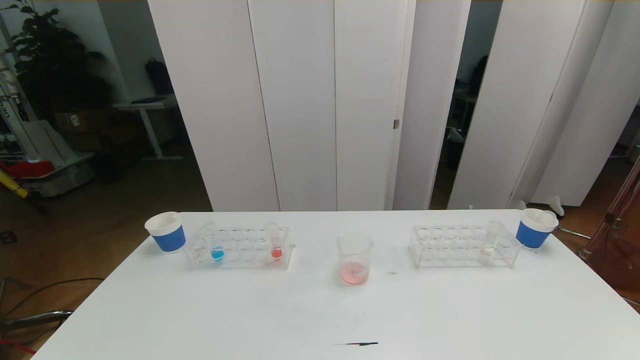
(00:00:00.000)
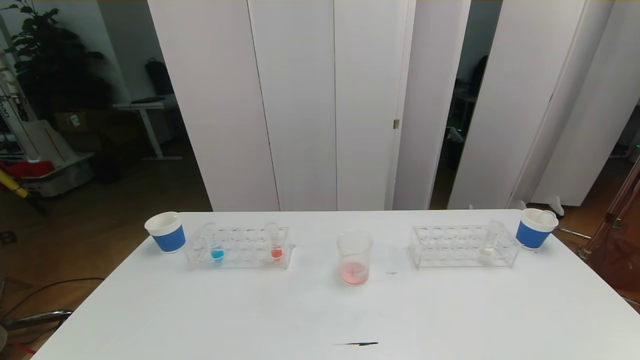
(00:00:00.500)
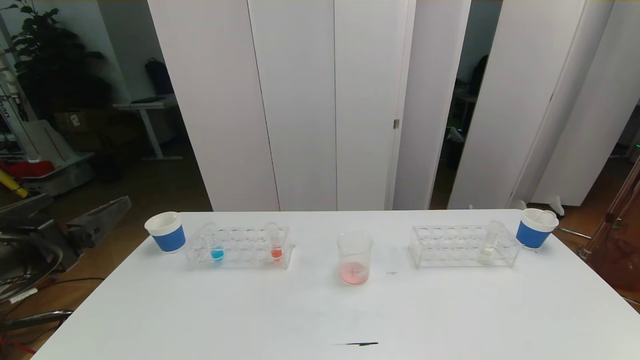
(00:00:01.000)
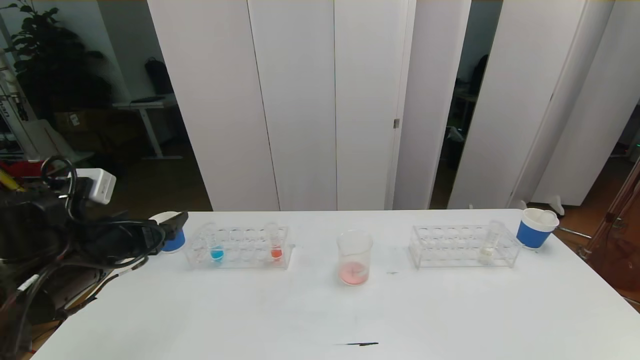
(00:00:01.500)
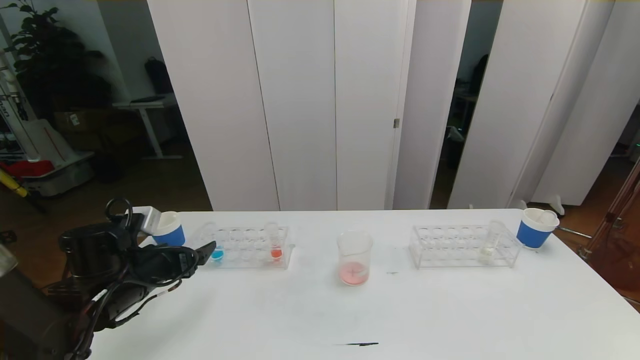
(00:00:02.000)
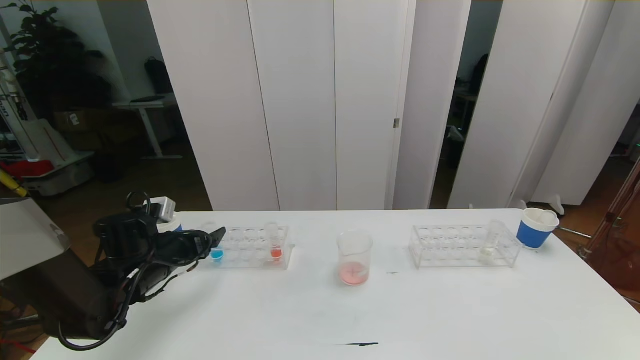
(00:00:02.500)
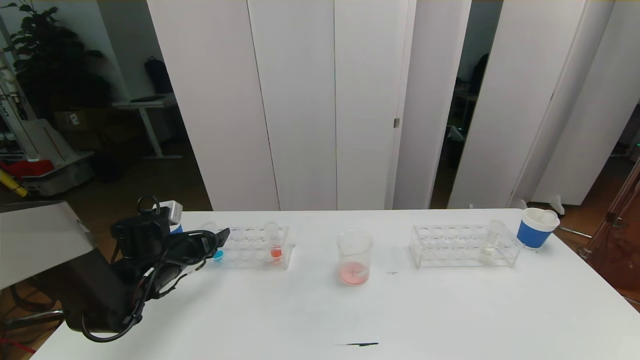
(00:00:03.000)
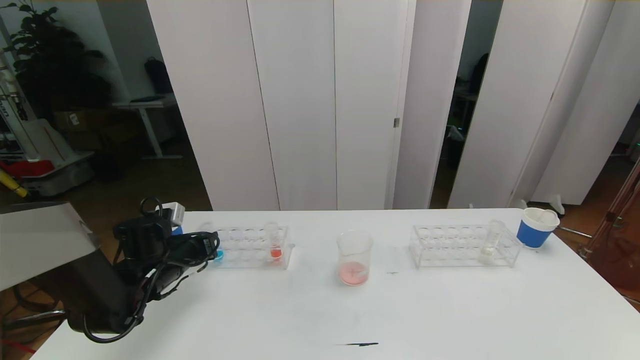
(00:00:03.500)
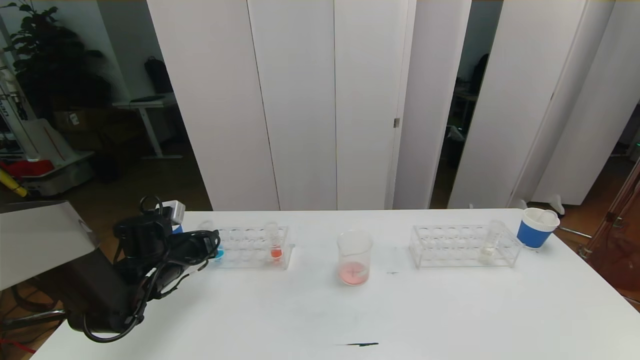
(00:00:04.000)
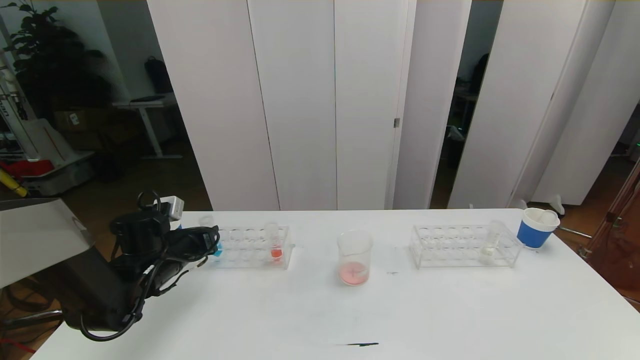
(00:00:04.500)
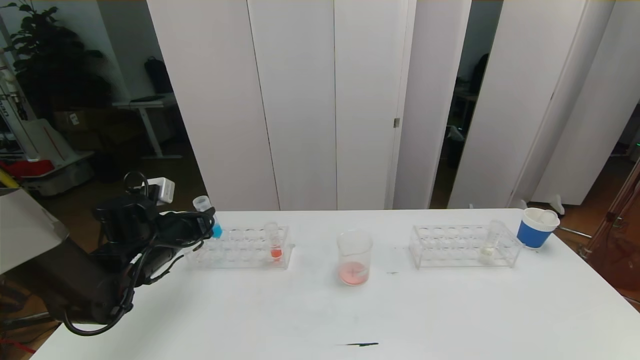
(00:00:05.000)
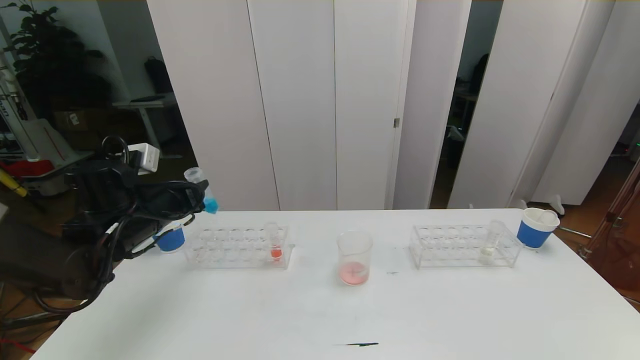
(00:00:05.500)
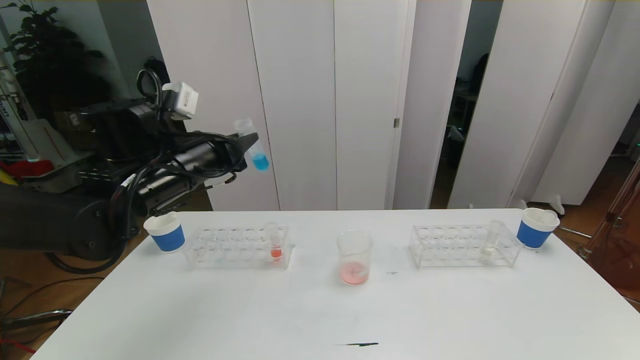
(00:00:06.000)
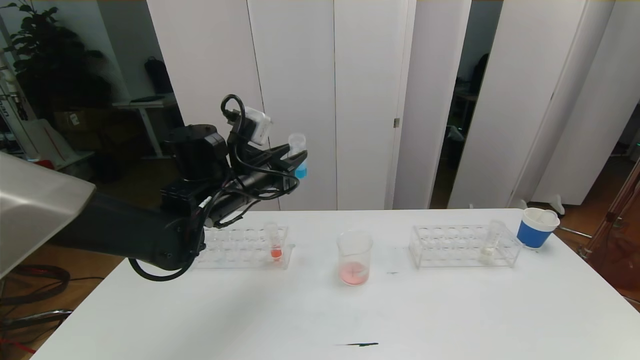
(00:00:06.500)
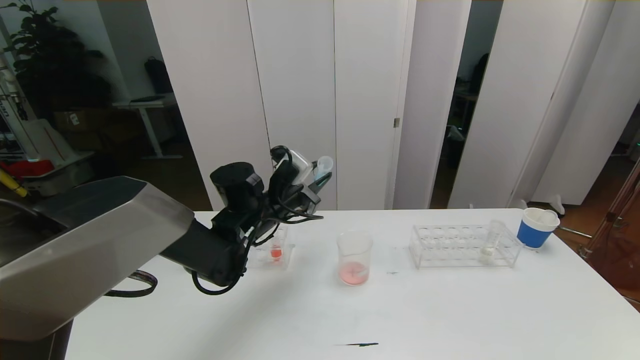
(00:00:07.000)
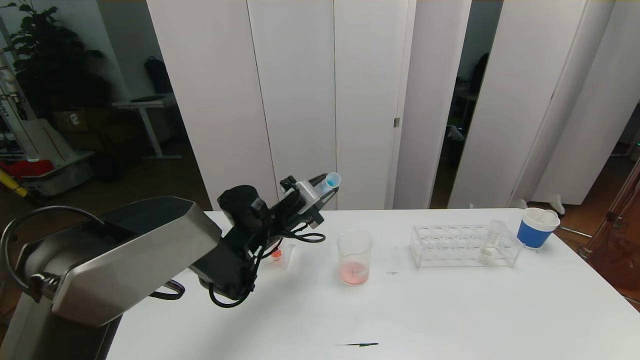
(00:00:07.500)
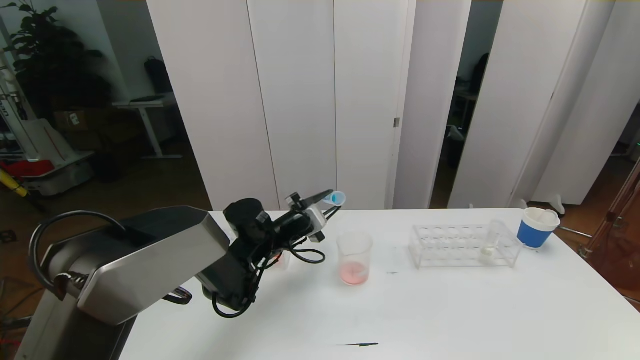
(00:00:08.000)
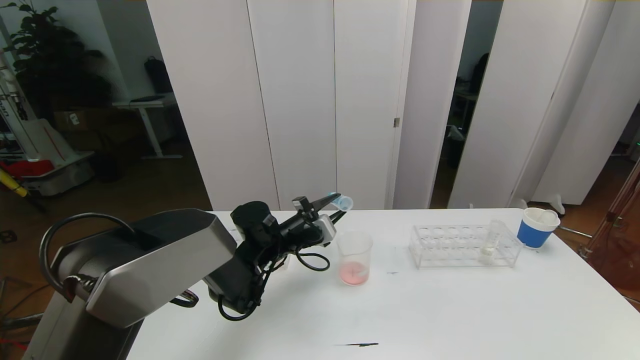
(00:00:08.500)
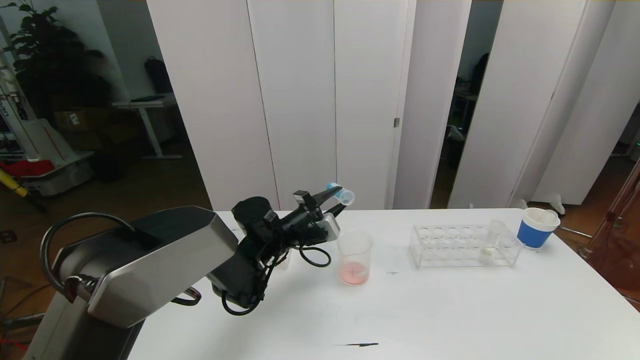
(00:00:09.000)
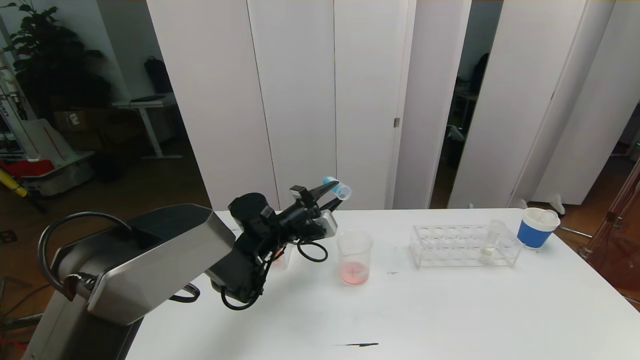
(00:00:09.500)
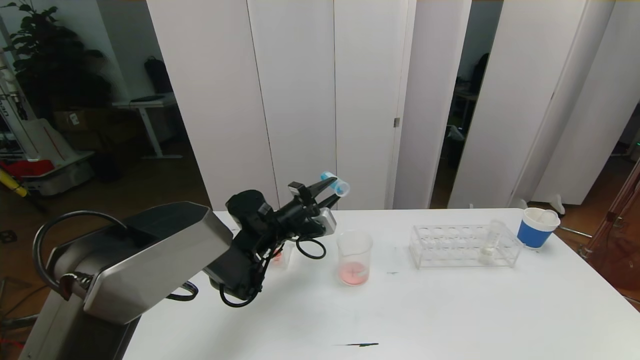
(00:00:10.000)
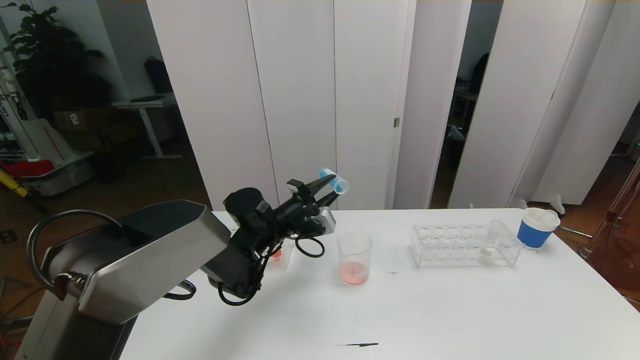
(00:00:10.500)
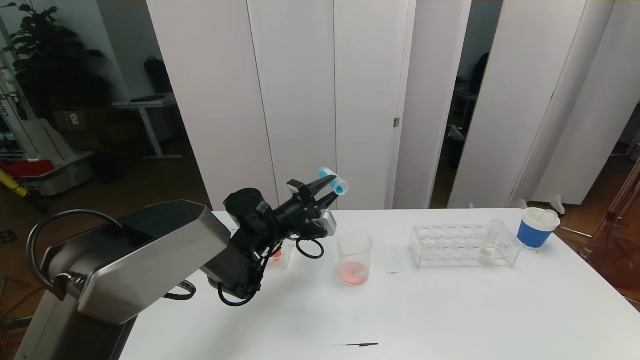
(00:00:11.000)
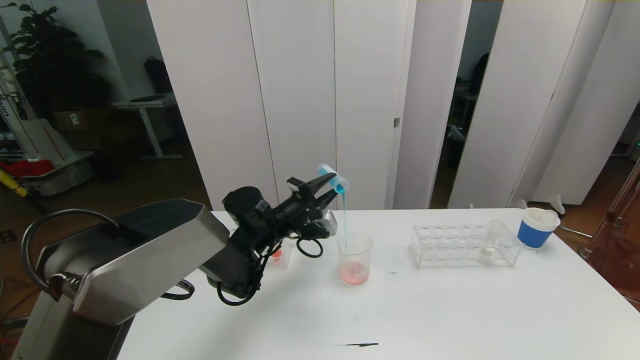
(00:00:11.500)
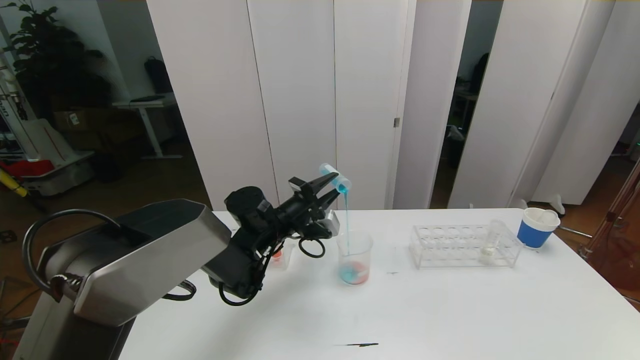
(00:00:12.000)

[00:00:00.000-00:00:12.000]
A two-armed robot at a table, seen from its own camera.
Task of the whole recording: pick up the test tube with red pigment the test tube with blue pigment and the test tube with white pigment by grippers and pour them into the beaker.
00:00:00.000 to 00:00:02.000: The left gripper moves forward, roughly 30 cm.
00:00:02.000 to 00:00:04.000: The left gripper moves forward, some 5 cm, and closes.
00:00:04.000 to 00:00:06.000: The left gripper travels upward and to the right by some 20 cm.
00:00:06.000 to 00:00:08.000: The left gripper is displaced downward and to the right by some 20 cm.
00:00:10.000 to 00:00:12.000: The grippers make only small movements.

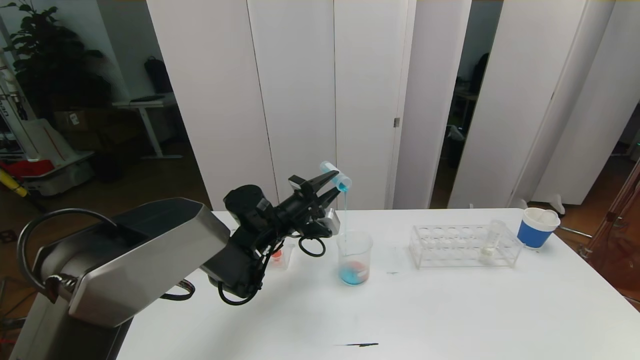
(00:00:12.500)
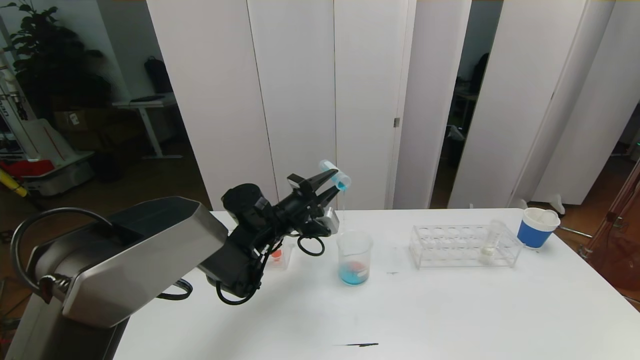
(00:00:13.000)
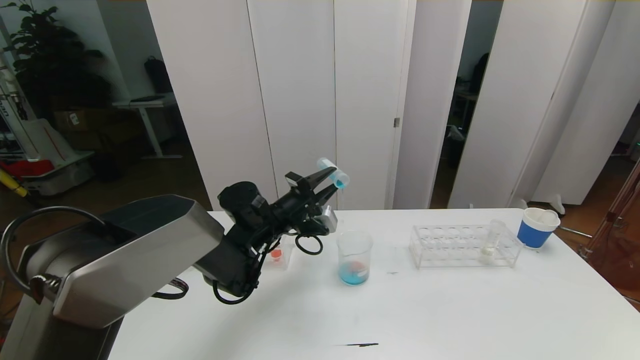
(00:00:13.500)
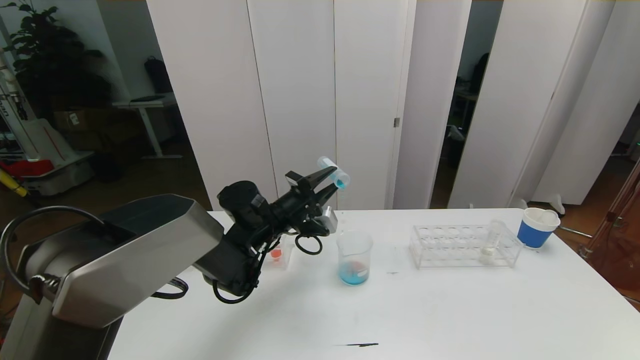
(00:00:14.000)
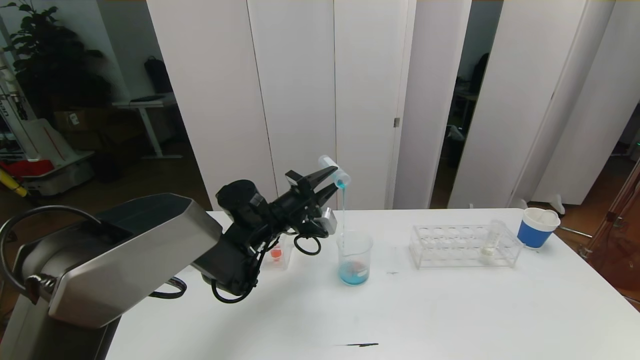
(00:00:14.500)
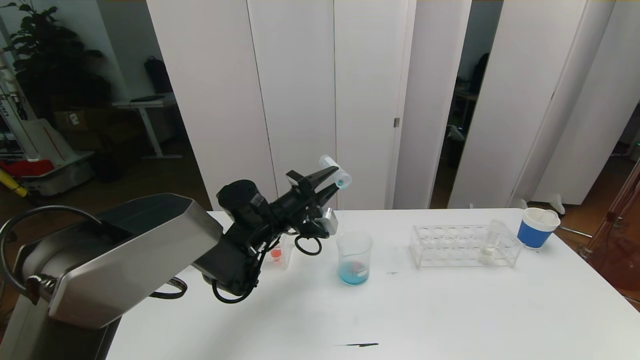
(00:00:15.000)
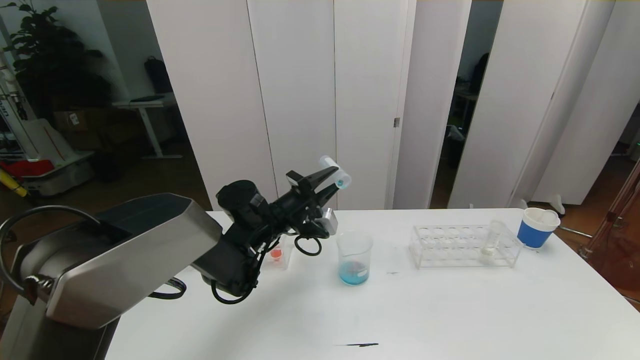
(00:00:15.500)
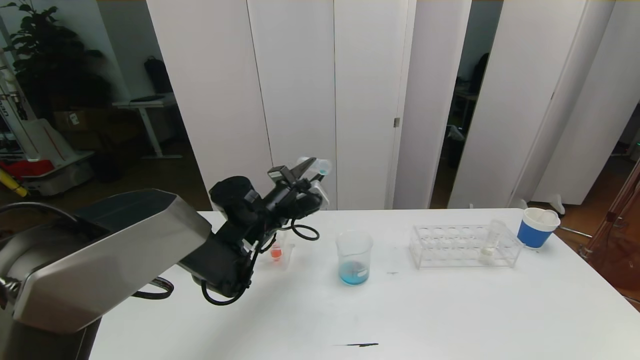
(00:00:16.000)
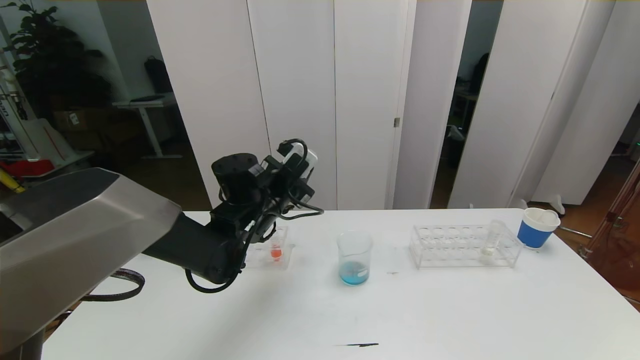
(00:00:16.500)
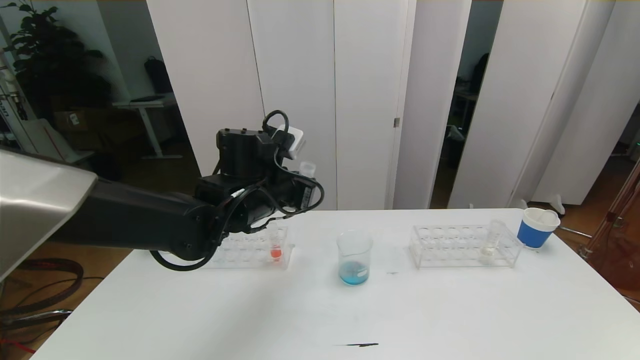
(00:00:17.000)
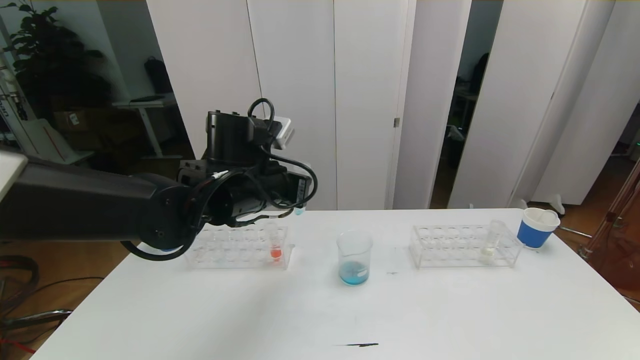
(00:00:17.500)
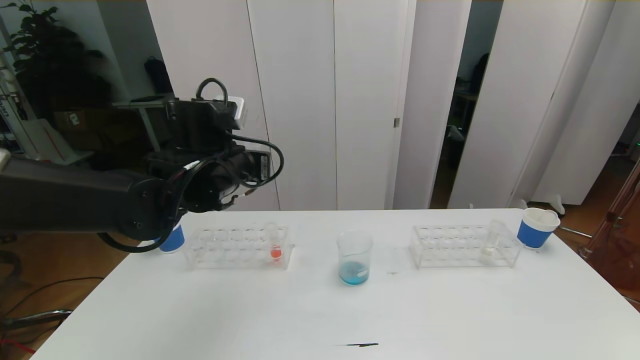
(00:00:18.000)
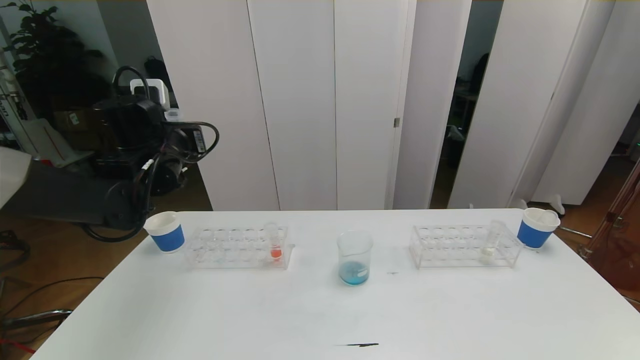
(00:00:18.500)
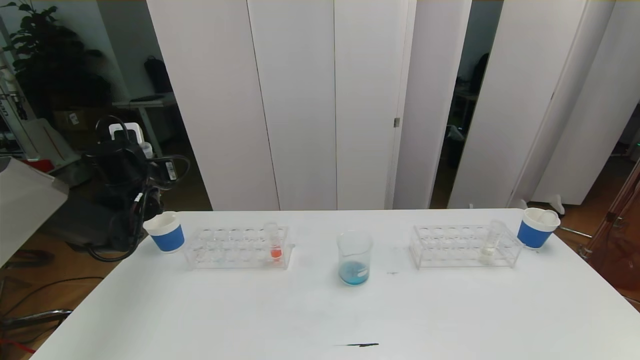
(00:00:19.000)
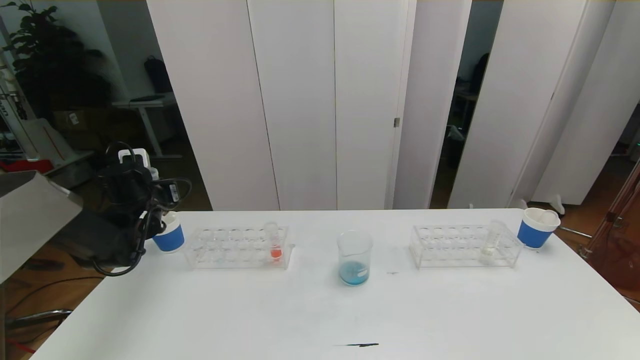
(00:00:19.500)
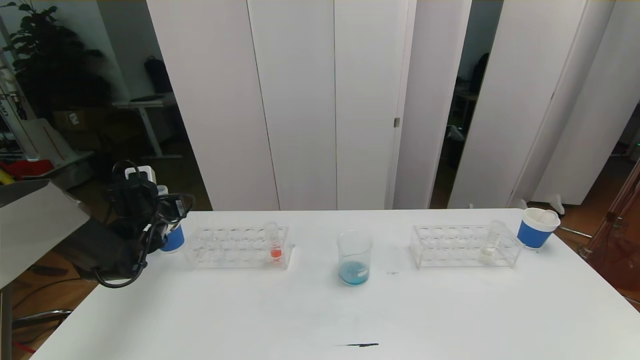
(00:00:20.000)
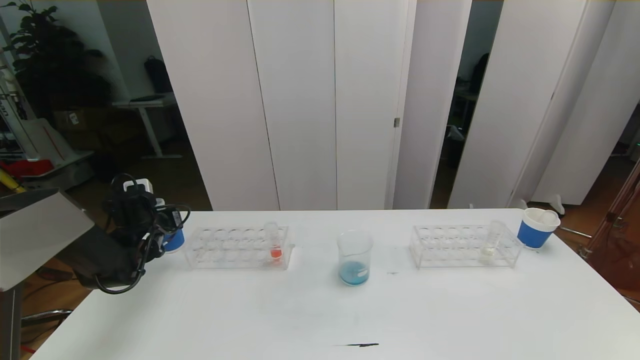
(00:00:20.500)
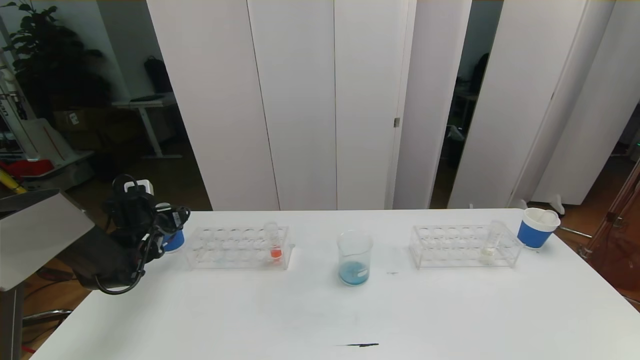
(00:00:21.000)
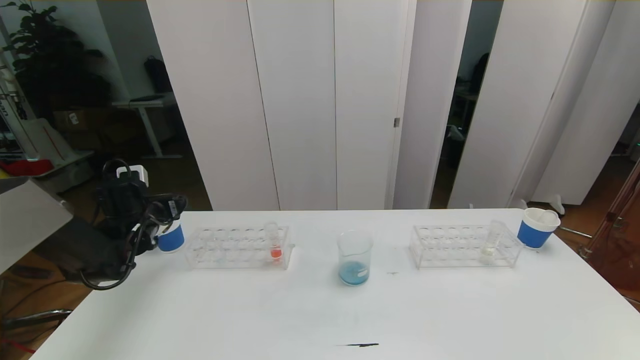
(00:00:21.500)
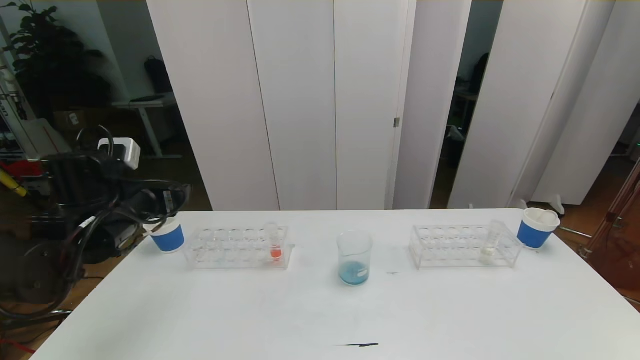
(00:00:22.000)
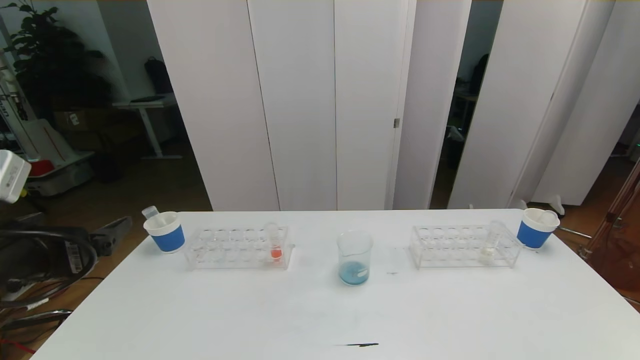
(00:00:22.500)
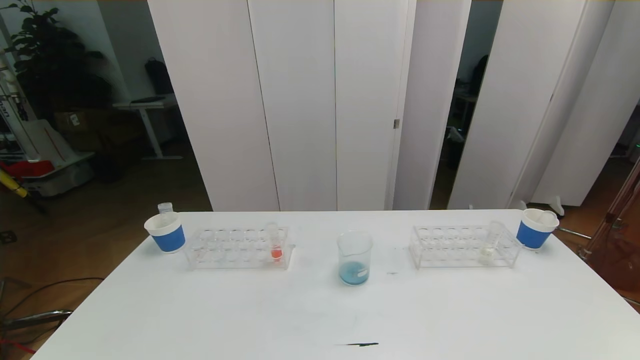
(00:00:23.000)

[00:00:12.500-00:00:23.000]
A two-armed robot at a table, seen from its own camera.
Task of the whole recording: pick up the test tube with red pigment the test tube with blue pigment and the test tube with white pigment by grippers and pour them into the beaker.
00:00:12.500 to 00:00:14.500: Both grippers stay about where they are.
00:00:16.500 to 00:00:19.000: The left gripper goes roughly 25 cm to the left.
00:00:19.000 to 00:00:21.000: The left gripper moves downward, roughly 10 cm, and opens.
00:00:21.000 to 00:00:23.000: The left gripper moves backward, some 40 cm.
